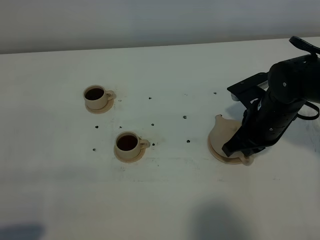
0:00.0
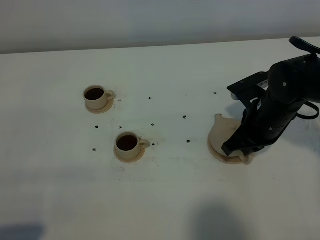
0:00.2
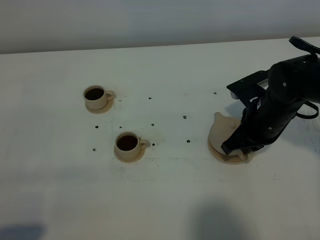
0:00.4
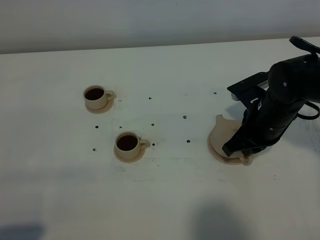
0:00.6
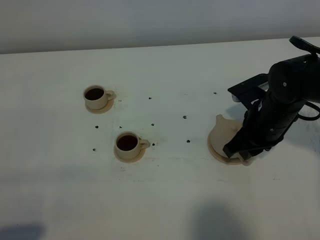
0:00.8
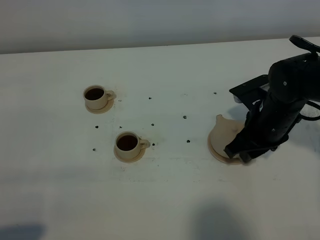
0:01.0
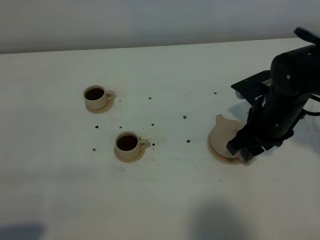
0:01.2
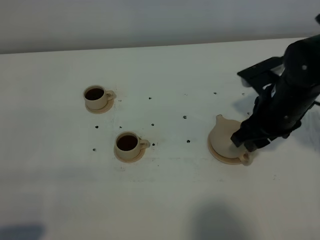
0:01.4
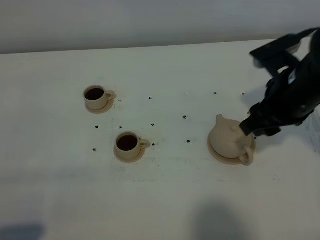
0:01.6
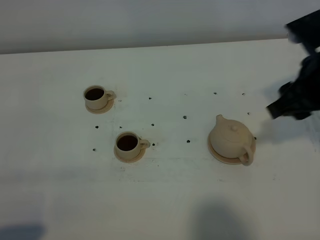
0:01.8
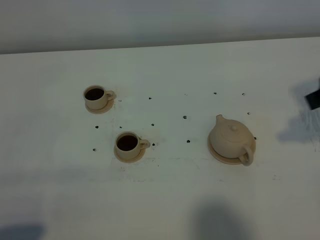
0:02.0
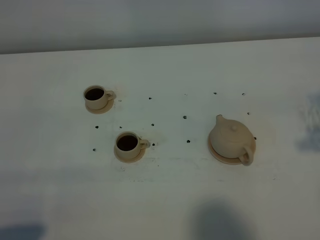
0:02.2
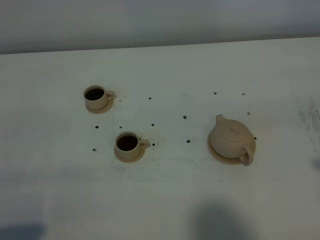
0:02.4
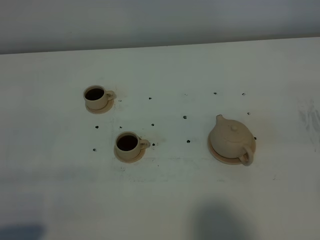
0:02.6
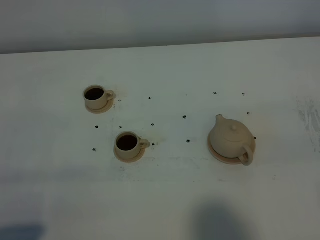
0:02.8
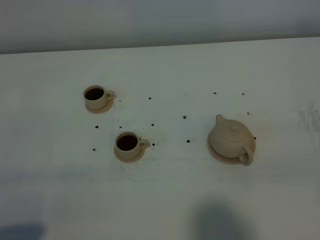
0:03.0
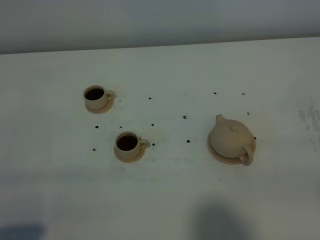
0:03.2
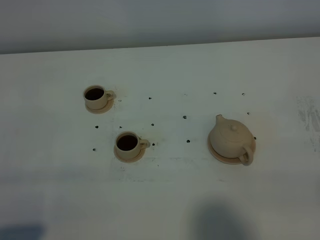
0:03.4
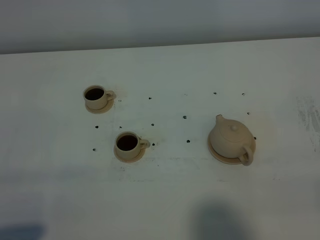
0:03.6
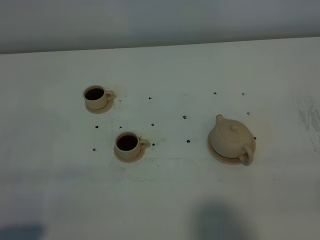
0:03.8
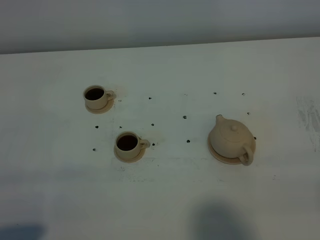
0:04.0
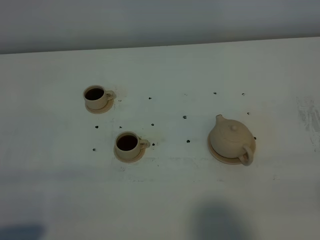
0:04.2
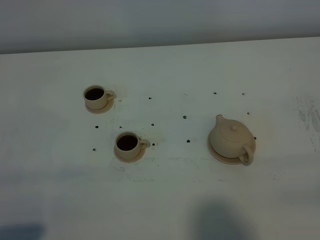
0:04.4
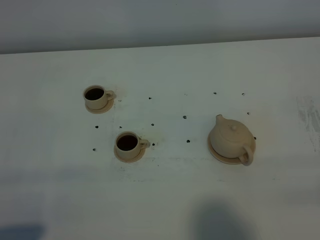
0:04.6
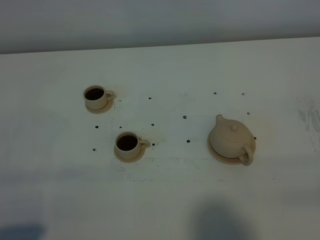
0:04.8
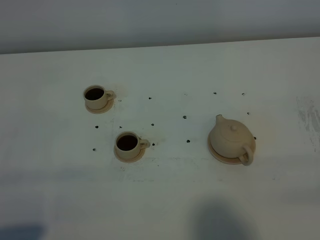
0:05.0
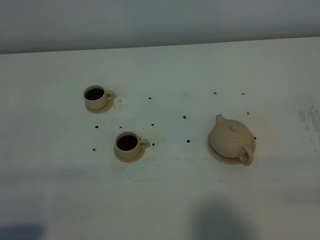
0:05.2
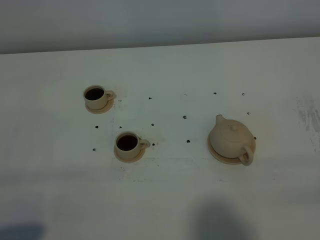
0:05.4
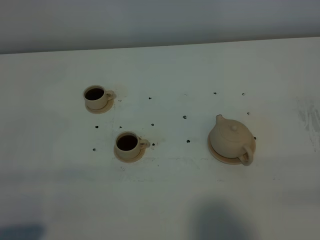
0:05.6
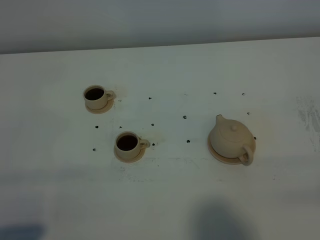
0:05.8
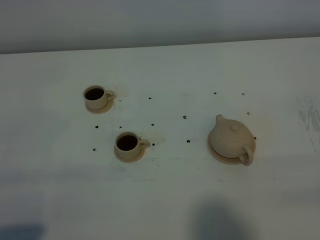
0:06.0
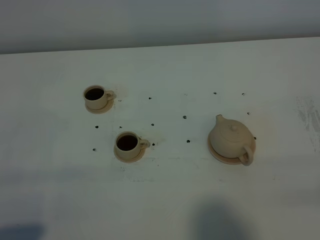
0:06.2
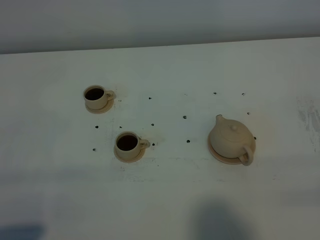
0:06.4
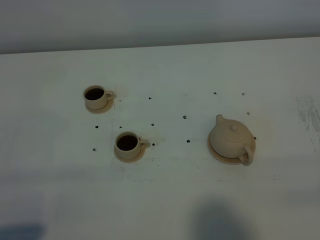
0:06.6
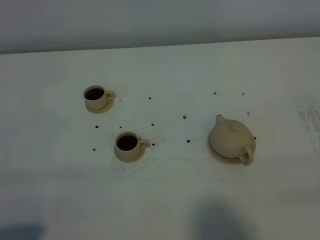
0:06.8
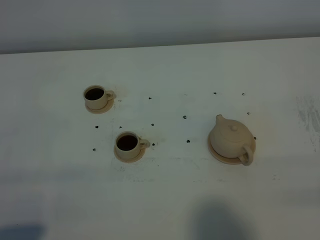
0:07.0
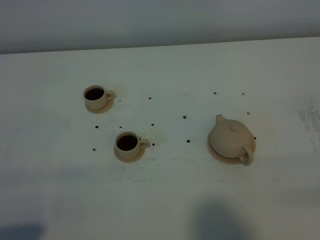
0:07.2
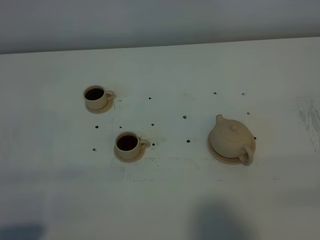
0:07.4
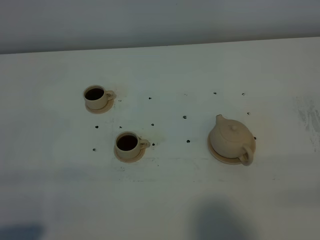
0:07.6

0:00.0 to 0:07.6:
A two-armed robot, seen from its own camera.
Task of the whole recording: grasp the brown teapot and pour the tea into the two brown teacups one by one, put the brown teapot back in its original place.
0:00.0 to 0:01.6: The right gripper shifts about 10 cm upward, and opens its fingers.
0:01.6 to 0:03.0: The right gripper moves backward and to the right, approximately 25 cm.
0:04.6 to 0:07.6: Both grippers stay put.

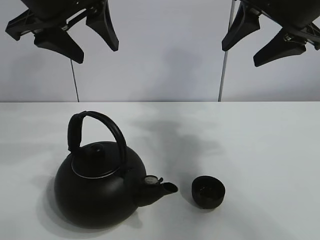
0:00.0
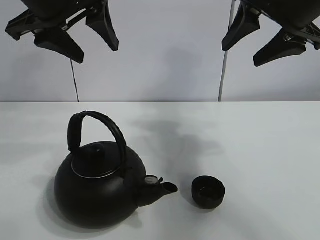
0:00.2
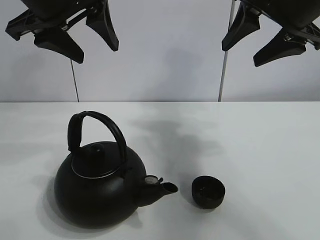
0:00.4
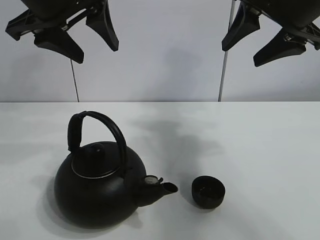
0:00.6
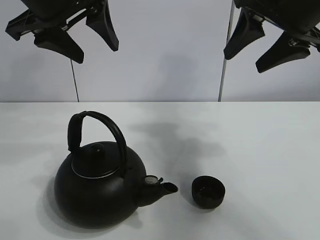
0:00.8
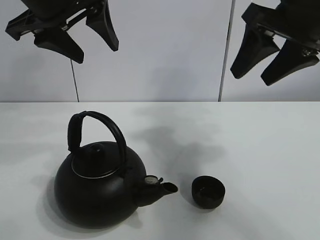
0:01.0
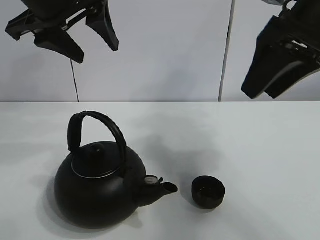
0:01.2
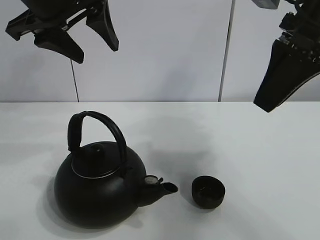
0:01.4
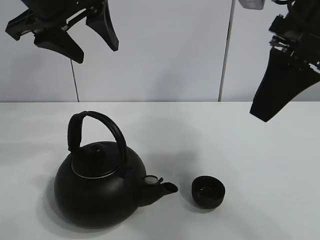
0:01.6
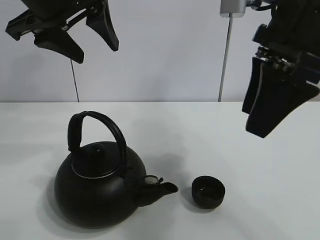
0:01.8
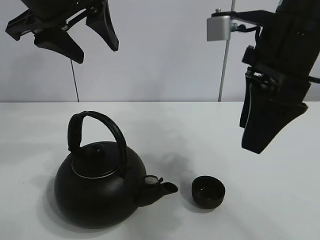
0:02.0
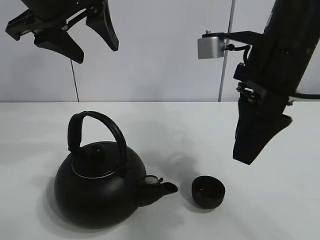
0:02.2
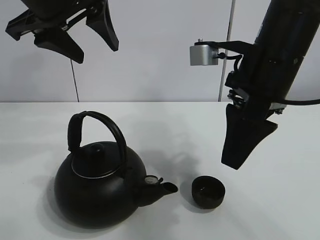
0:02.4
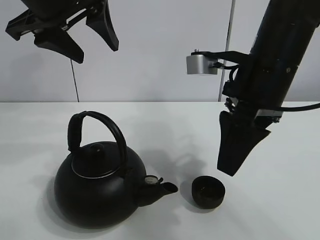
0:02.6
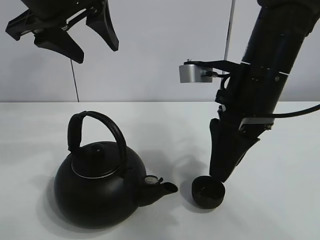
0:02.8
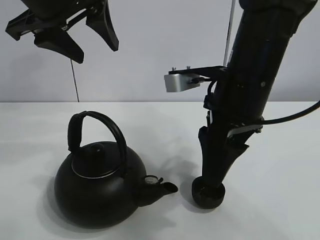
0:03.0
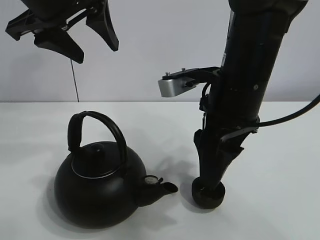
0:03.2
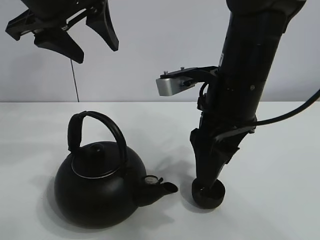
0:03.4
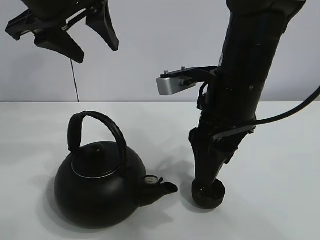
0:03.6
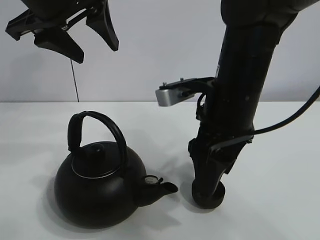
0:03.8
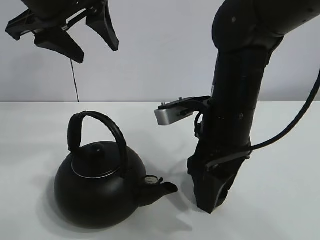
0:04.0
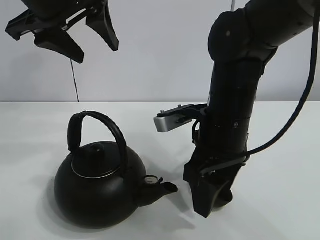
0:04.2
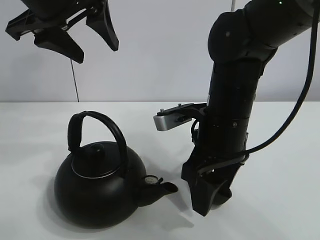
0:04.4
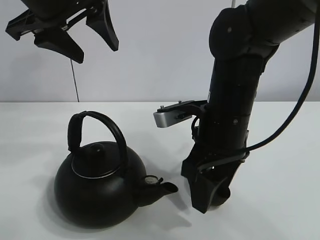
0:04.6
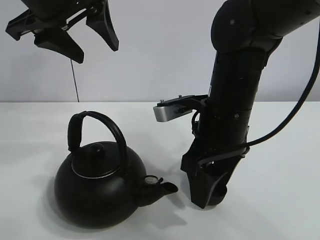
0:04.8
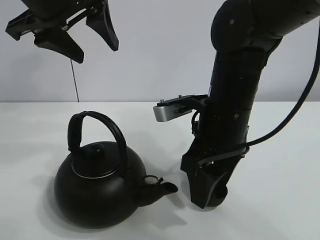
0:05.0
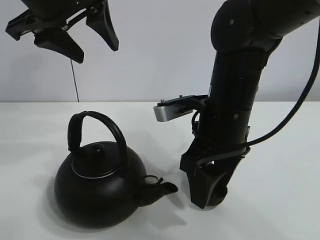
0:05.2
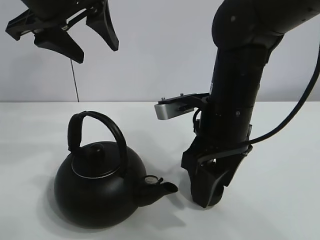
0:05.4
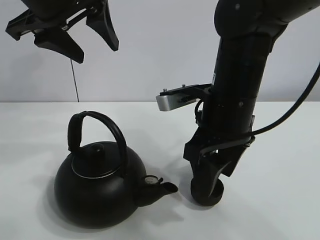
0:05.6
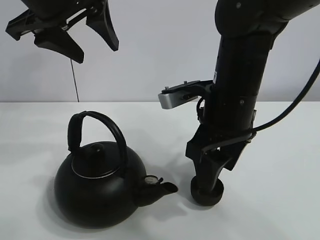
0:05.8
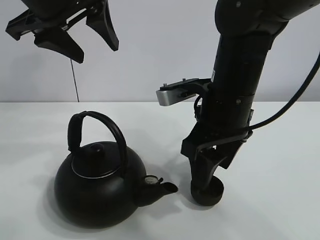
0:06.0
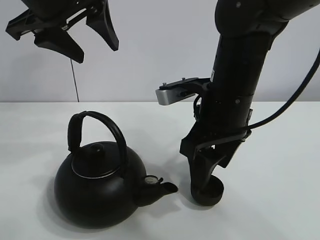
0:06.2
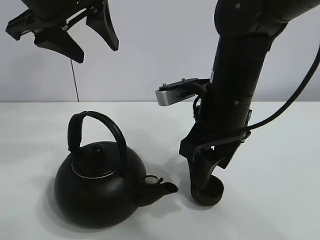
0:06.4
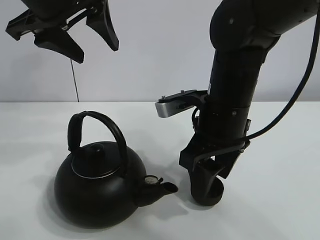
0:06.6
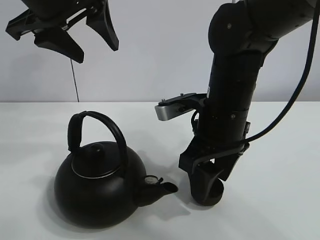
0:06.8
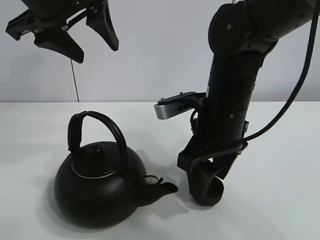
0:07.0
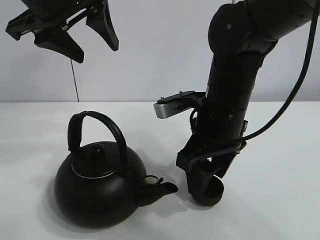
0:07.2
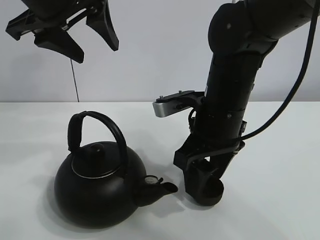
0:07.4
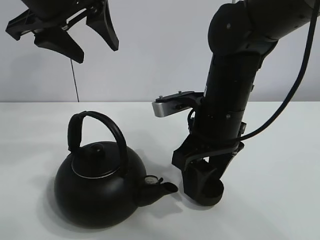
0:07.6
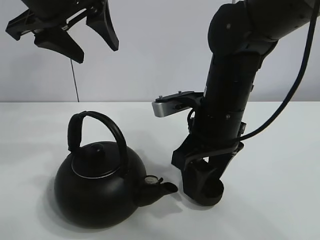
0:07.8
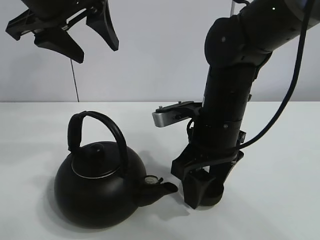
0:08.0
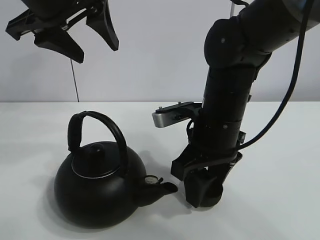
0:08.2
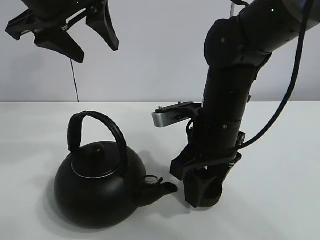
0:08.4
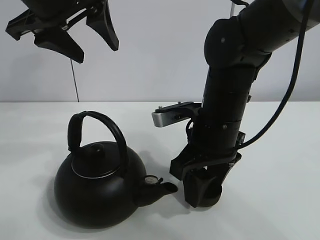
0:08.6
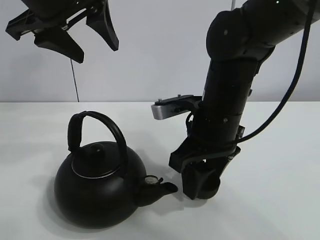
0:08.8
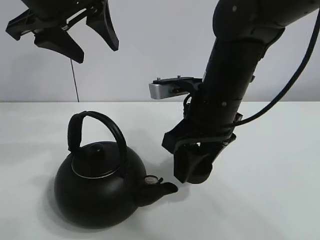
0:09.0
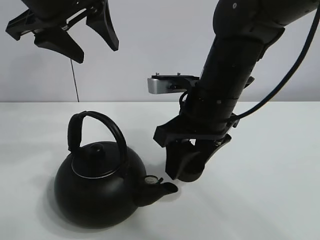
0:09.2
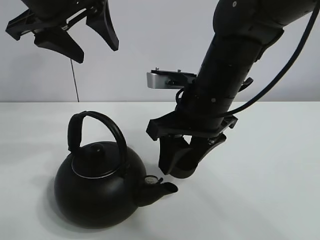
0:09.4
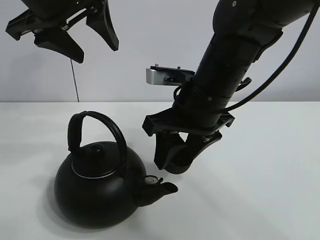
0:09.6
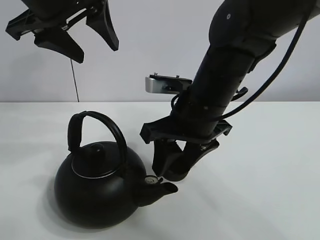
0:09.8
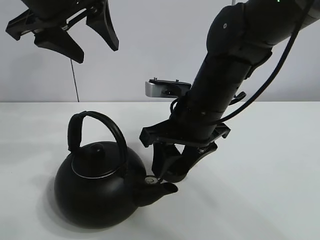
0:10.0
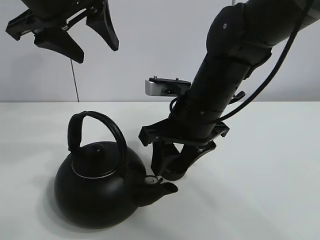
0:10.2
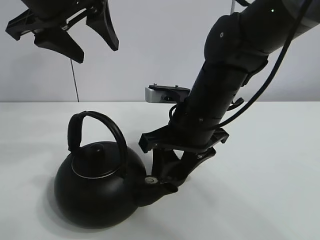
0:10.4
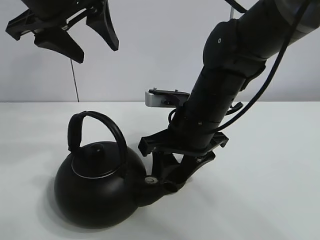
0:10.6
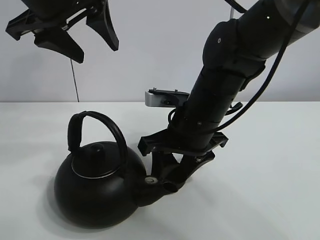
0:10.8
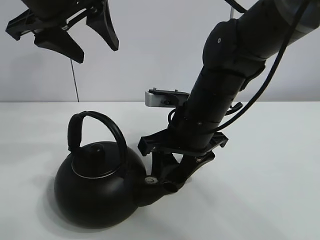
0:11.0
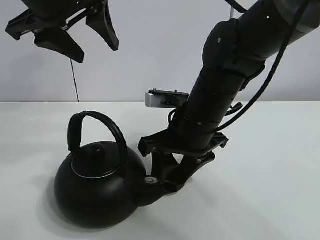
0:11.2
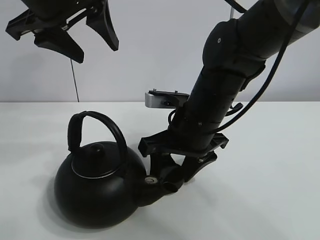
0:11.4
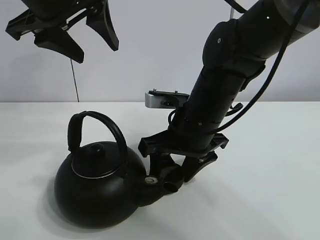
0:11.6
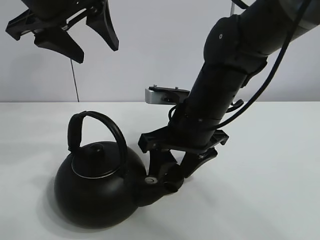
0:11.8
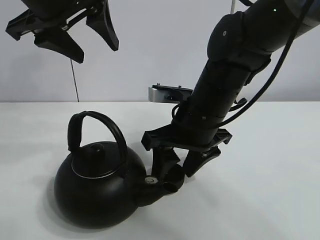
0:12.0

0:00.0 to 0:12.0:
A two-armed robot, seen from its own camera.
Task of the whole recording: pour tea into the teacup.
Step, 0:00.0 to 0:08.6: Pick up the teacup with the right gripper.
Step, 0:08.8 to 0:11.8: Place the teacup in the center of view with the right gripper.
0:01.6 to 0:03.0: The right gripper moves downward and to the left, roughly 10 cm.
0:03.0 to 0:04.4: The right gripper is displaced downward by about 5 cm.
0:04.4 to 0:09.0: The grippers stay close to where they were, moving slightly.
0:09.0 to 0:10.4: The grippers stay close to where they were, moving slightly.
0:10.4 to 0:12.0: The two grippers keep their place.

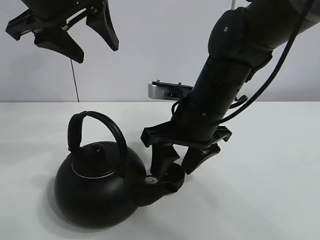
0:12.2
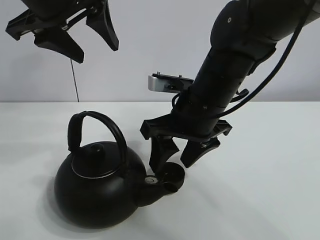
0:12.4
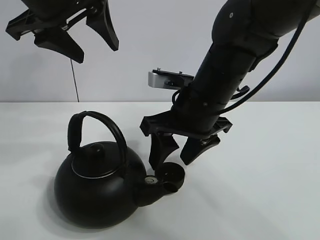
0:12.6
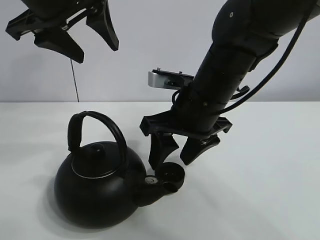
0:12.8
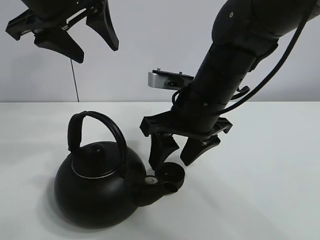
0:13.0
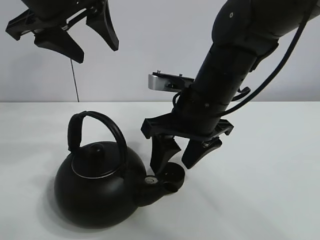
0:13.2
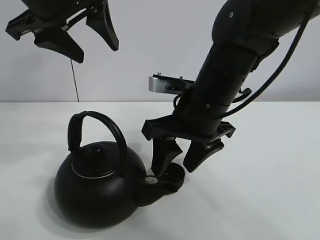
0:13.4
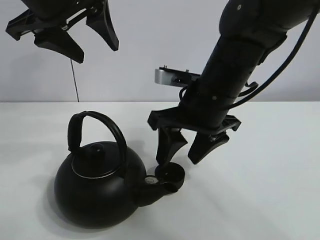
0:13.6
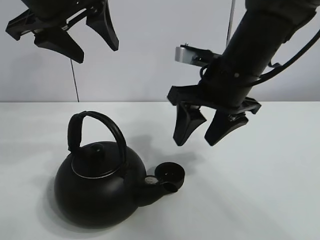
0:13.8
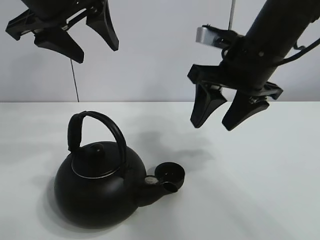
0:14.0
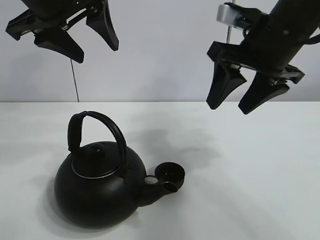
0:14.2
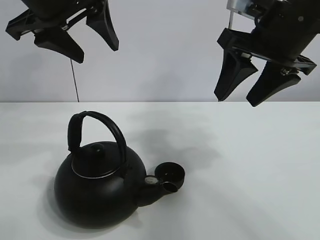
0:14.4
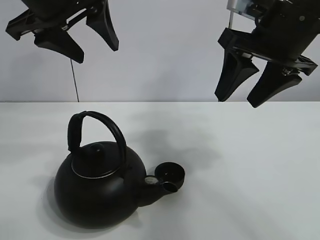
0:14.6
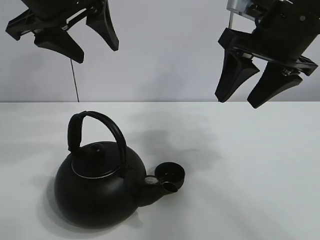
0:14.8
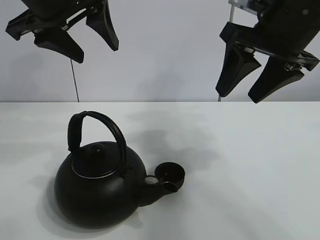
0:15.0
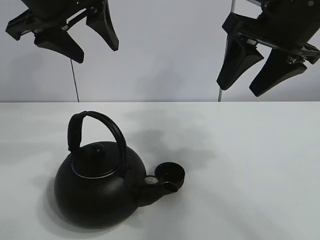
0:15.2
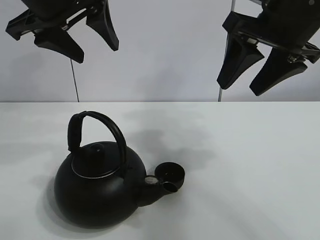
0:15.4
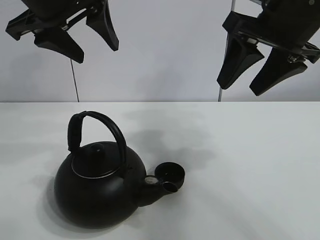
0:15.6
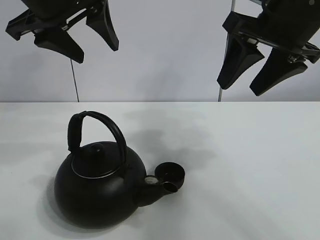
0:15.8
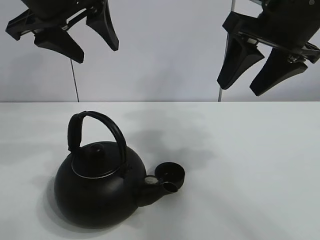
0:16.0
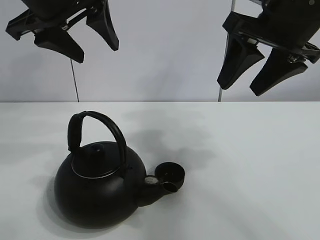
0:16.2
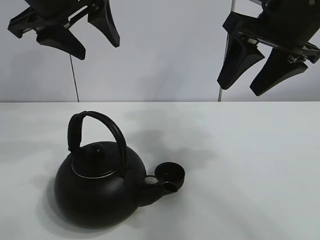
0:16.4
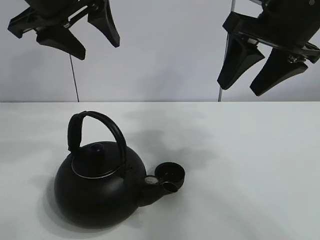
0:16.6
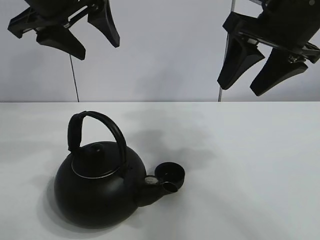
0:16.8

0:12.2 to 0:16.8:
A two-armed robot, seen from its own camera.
Task of the whole recording: pour tea into the teacup.
0:12.2 to 0:13.8: The right gripper travels upward by approximately 5 cm.
0:13.8 to 0:15.2: The right gripper heads upward and to the right, covering roughly 10 cm.
0:15.2 to 0:16.8: Both grippers stay put.
